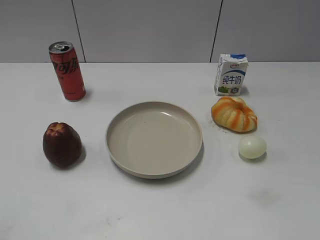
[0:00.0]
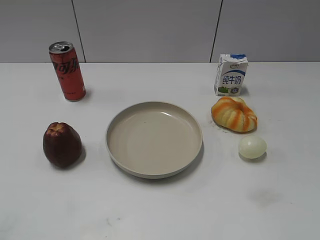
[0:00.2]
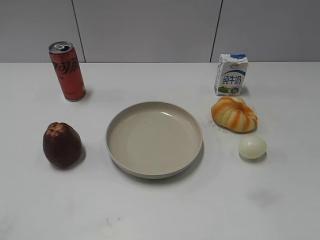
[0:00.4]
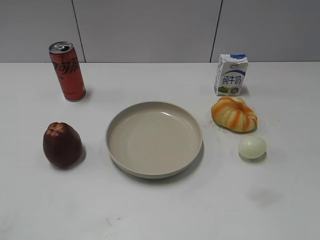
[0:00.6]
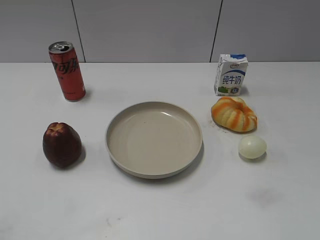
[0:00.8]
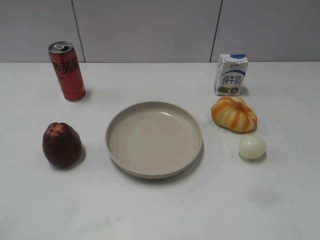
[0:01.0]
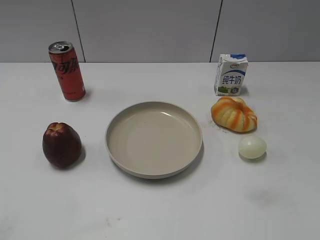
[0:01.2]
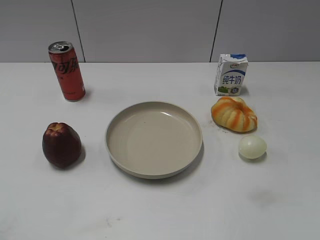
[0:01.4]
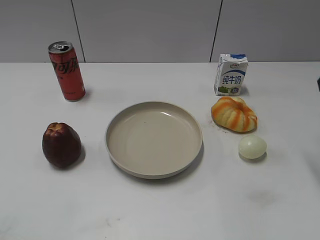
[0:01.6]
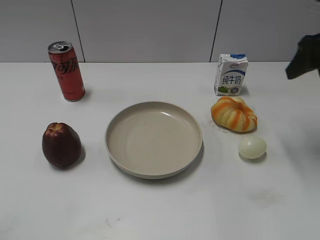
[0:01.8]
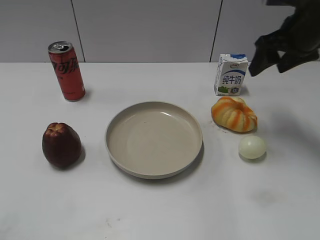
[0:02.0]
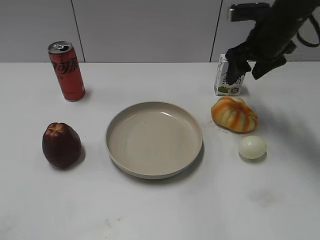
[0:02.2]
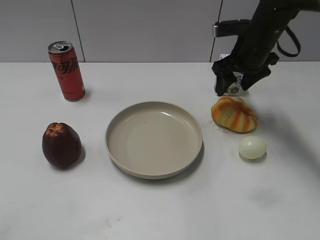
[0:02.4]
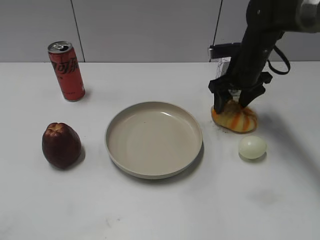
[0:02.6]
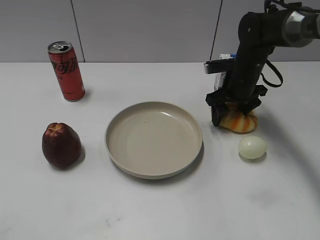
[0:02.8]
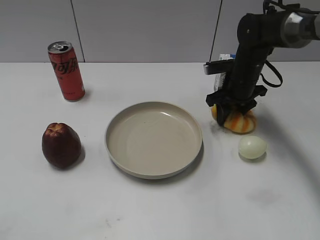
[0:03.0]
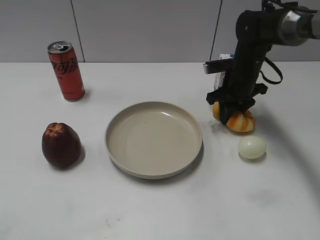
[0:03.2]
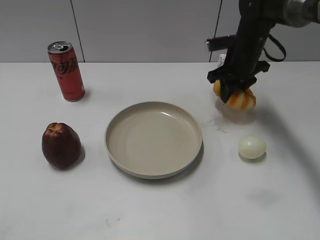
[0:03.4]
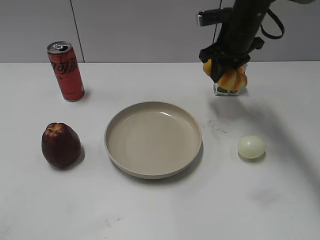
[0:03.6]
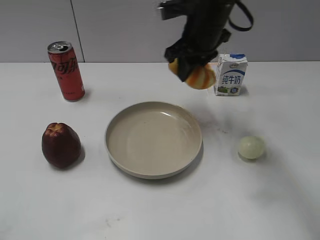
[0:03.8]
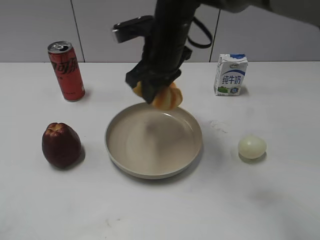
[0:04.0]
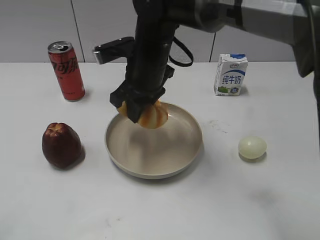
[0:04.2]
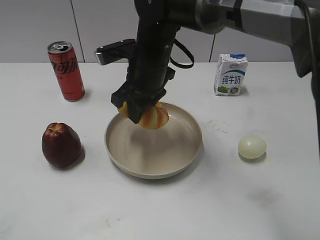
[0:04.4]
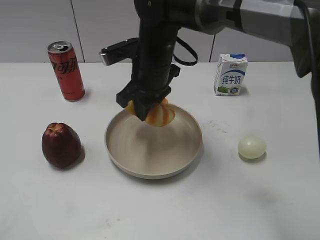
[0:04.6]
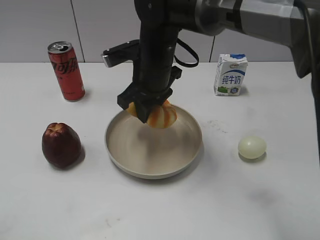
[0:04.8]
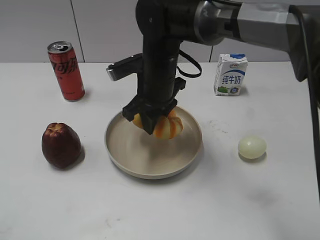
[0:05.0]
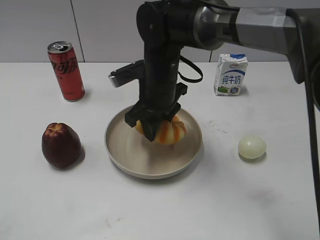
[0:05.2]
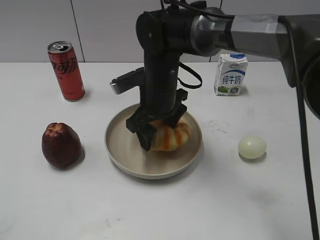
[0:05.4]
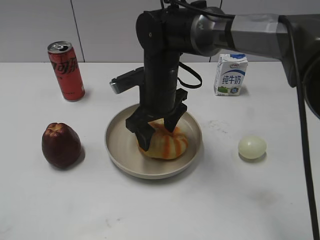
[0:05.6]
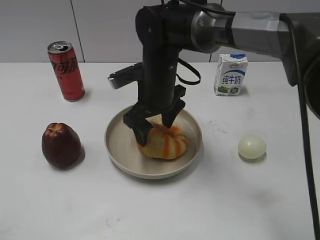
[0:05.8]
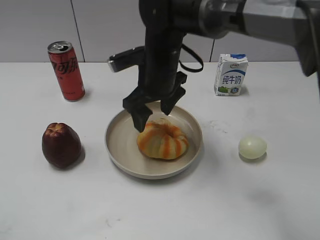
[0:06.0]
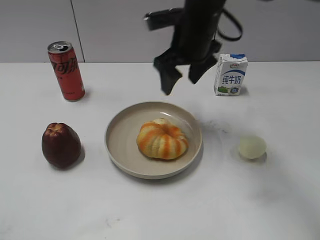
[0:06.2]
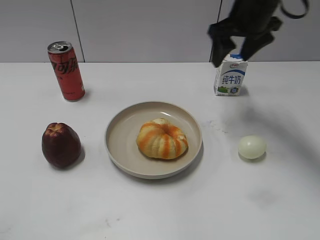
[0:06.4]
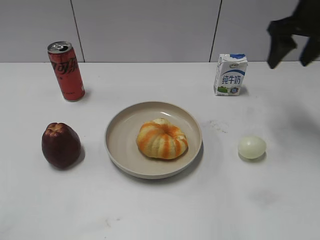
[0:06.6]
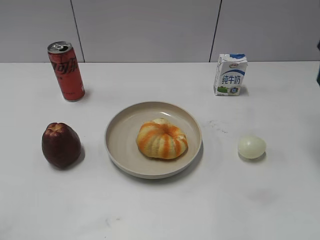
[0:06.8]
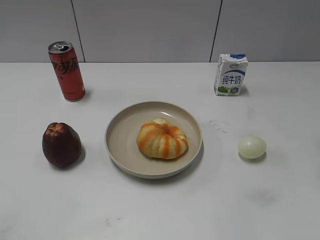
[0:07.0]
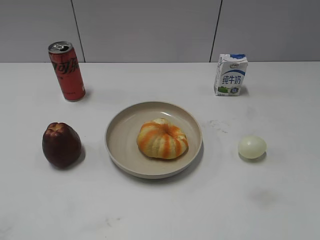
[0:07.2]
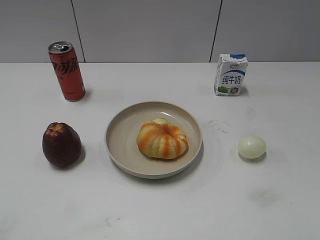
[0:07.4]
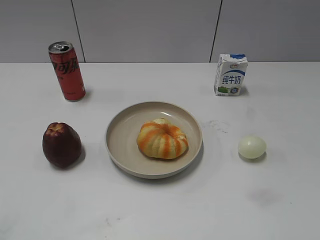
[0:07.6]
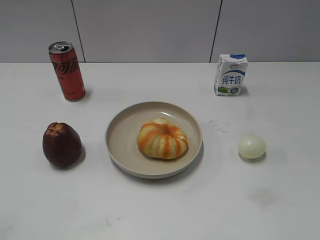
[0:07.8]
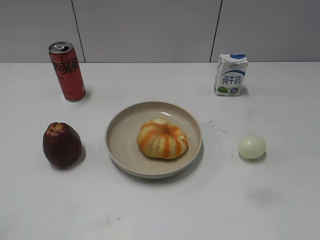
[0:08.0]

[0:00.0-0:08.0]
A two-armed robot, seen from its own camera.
Step, 0:00.6 to 0:03.0: Grasp the round bread with right gripper.
Step, 0:03.2 to 0:06.0: Place the round bread on the plate with right gripper.
0:01.6 to 0:03.2: The right gripper shifts roughly 30 cm downward, forward and to the left, and closes.
0:03.2 to 0:04.8: The right gripper shifts approximately 20 cm to the left and backward.
0:04.8 to 0:06.4: The right gripper moves to the right and upward, roughly 20 cm, and opens up.
0:06.4 to 0:08.0: The right gripper travels backward by some 40 cm.
